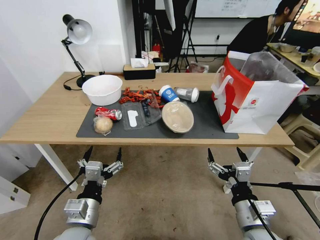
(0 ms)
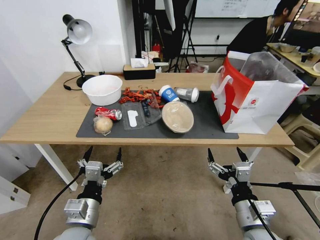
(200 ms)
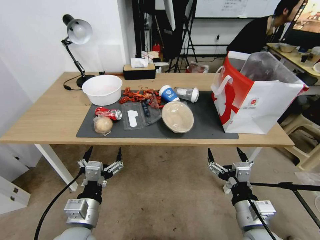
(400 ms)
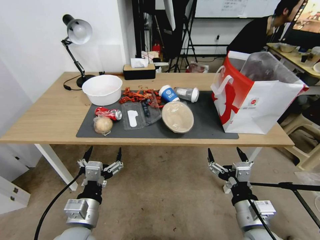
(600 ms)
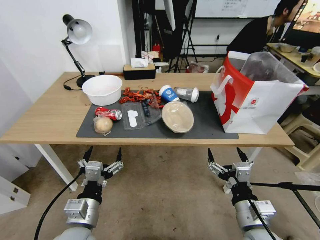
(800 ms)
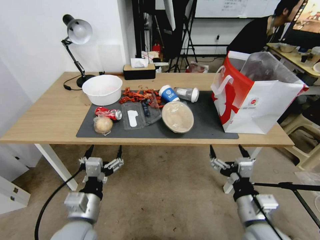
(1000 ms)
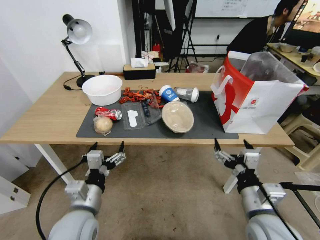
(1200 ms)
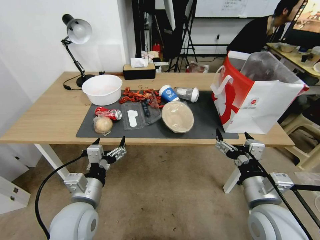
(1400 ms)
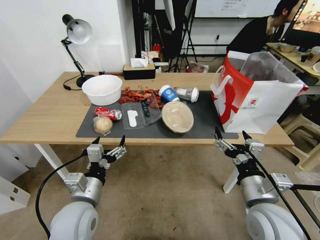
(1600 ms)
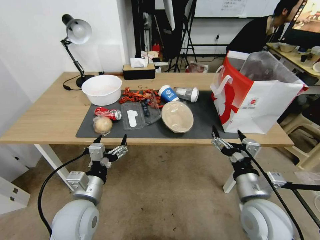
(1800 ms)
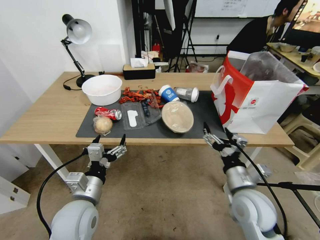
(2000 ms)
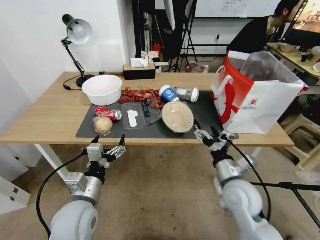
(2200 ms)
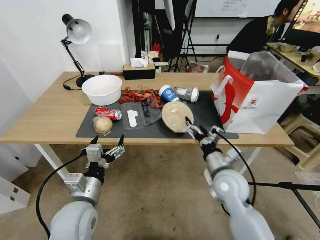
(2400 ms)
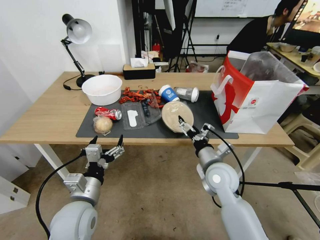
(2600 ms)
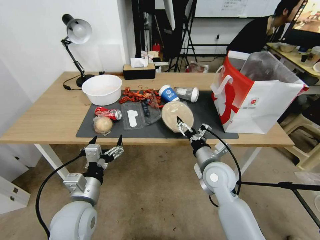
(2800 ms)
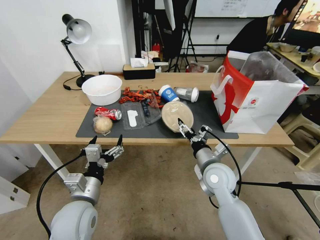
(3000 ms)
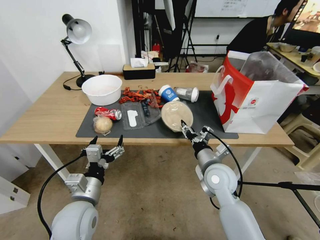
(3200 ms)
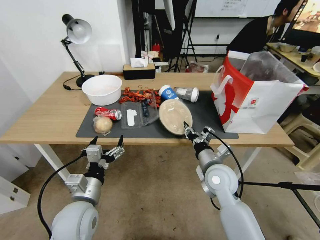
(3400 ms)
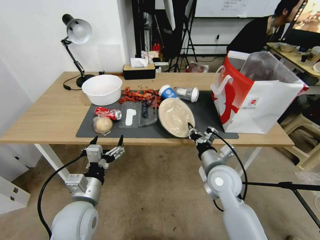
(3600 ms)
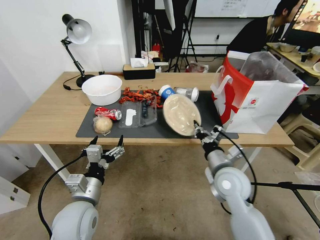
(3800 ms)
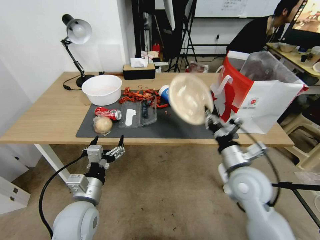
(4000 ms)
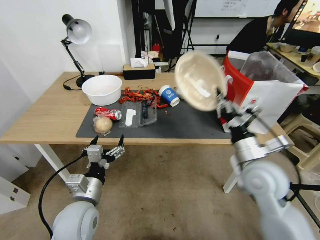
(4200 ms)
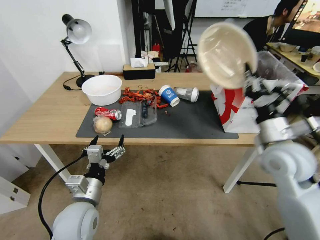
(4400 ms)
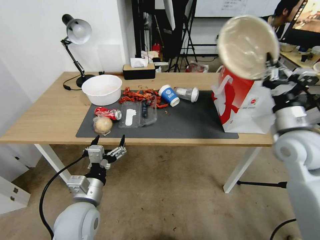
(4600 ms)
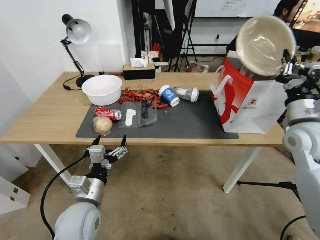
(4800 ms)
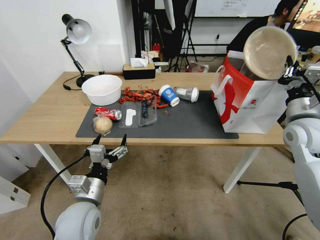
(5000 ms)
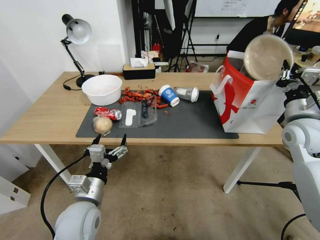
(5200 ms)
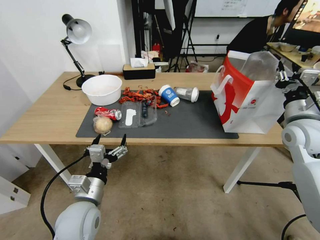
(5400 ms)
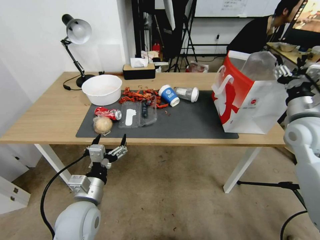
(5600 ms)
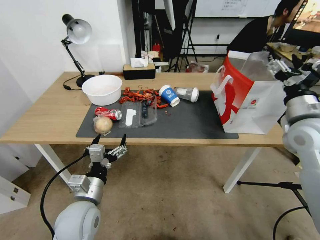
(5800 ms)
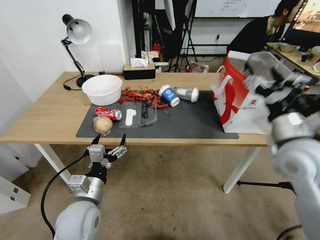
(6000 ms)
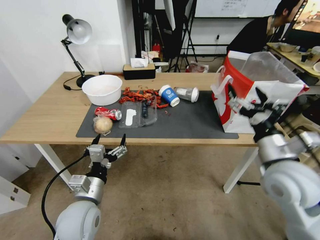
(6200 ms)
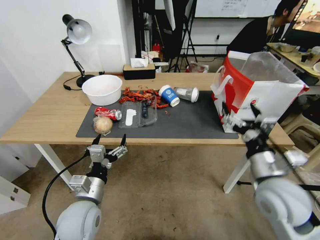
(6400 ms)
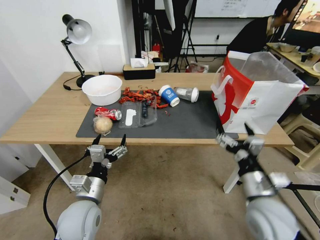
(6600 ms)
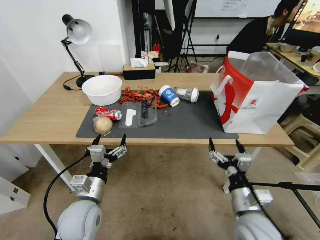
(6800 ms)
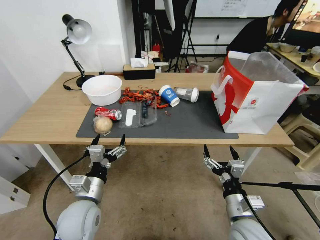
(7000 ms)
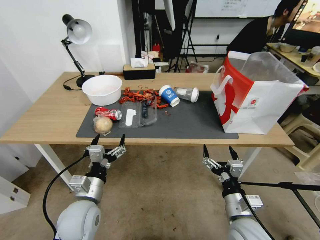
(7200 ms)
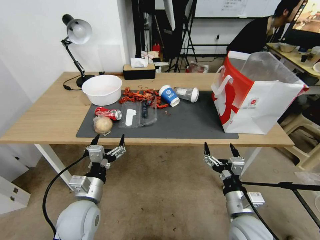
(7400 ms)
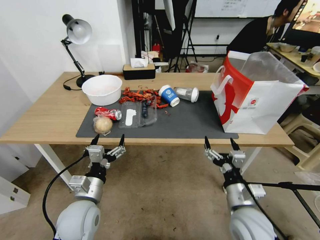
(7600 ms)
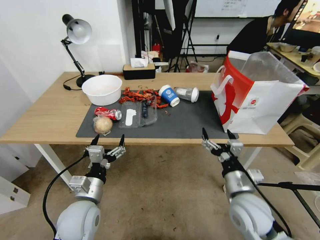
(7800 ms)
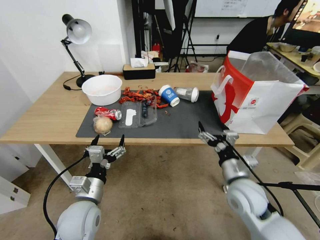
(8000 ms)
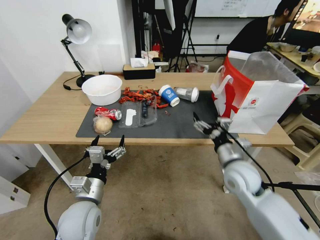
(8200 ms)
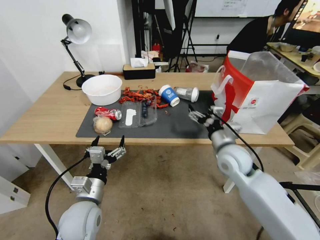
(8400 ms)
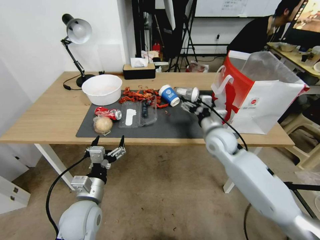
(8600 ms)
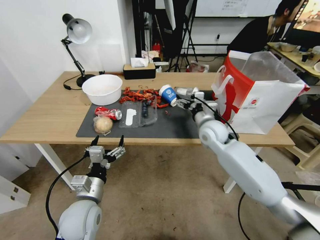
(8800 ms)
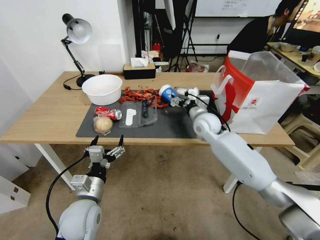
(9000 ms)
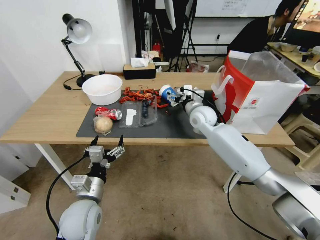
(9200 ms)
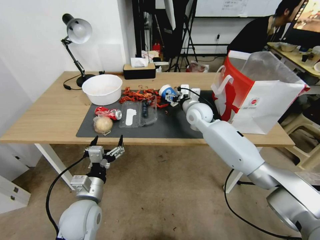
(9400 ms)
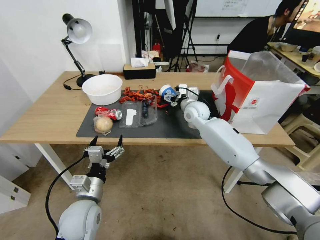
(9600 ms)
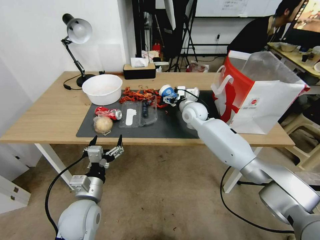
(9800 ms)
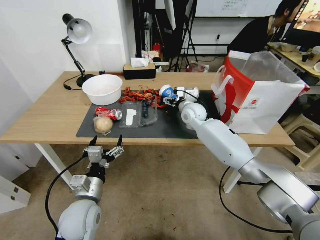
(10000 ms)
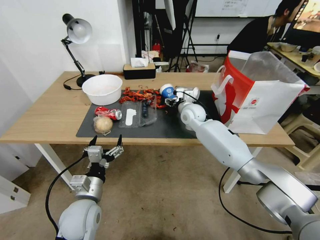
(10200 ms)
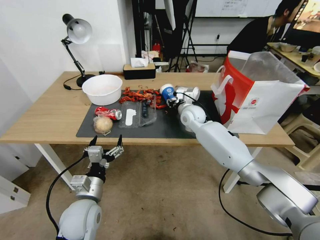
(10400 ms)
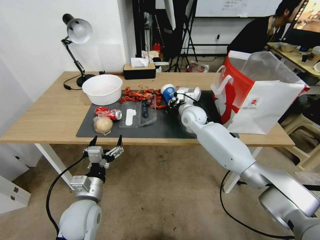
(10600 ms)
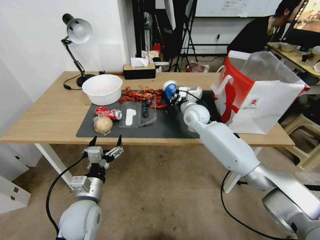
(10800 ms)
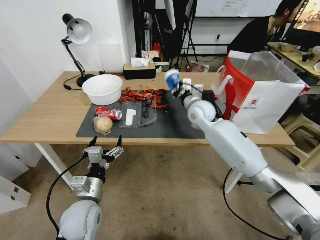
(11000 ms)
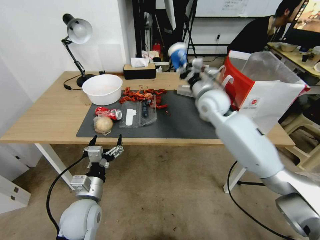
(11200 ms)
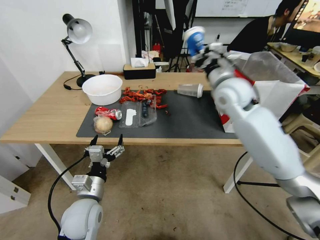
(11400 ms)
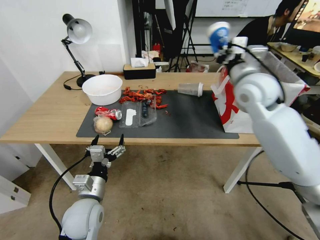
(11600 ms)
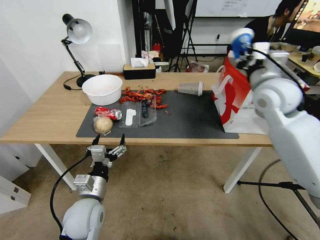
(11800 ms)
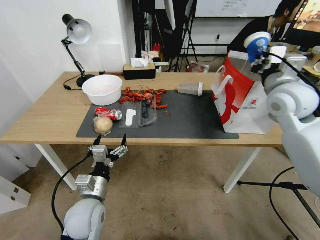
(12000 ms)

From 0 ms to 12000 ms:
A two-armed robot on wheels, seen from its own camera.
From 1600 ms to 3000 ms: The right gripper moves forward, to the left and downward, about 15 cm.
From 3000 ms to 4400 ms: The right gripper travels upward and to the right by some 15 cm, and closes.
From 4400 ms to 6000 ms: The right gripper reaches roughly 10 cm to the right, then returns, and opens up.
From 6000 ms to 7600 ms: The right gripper travels downward, backward and to the left by approximately 25 cm.
From 7600 ms to 9000 ms: The right gripper moves forward, some 30 cm.
From 9000 ms to 10400 ms: The right gripper shifts by about 5 cm, and closes up.
From 10400 ms to 12000 ms: The right gripper moves upward, to the right and backward, some 30 cm, and closes.

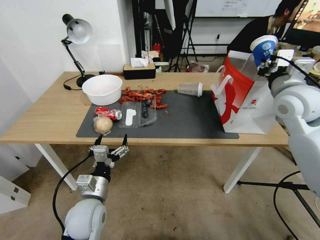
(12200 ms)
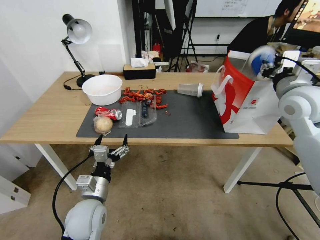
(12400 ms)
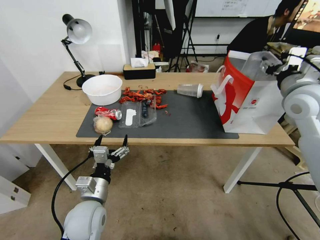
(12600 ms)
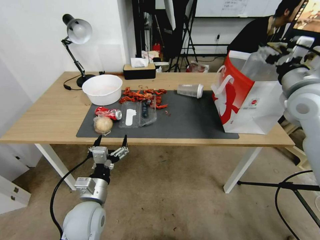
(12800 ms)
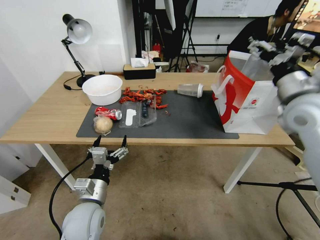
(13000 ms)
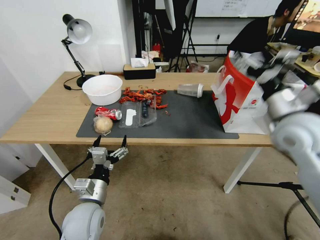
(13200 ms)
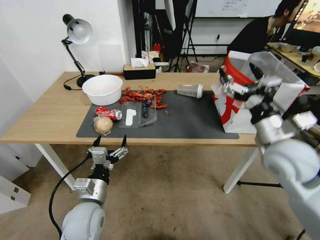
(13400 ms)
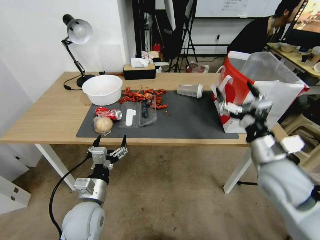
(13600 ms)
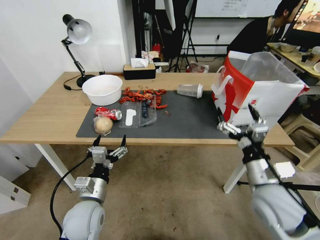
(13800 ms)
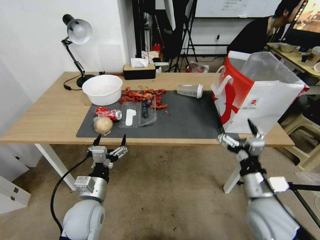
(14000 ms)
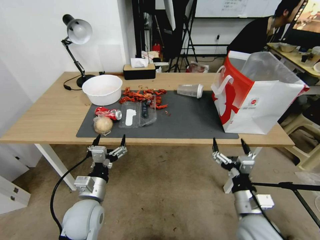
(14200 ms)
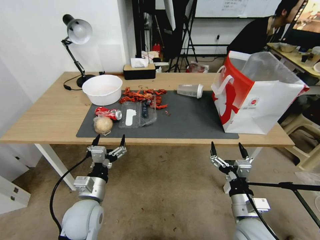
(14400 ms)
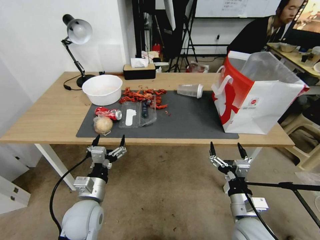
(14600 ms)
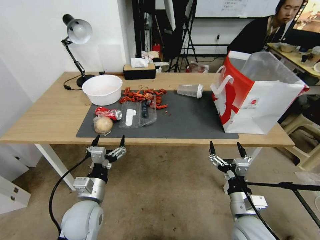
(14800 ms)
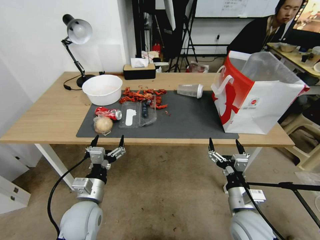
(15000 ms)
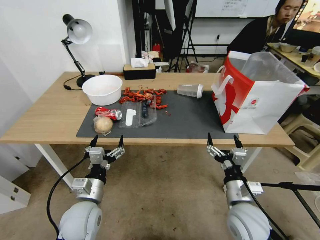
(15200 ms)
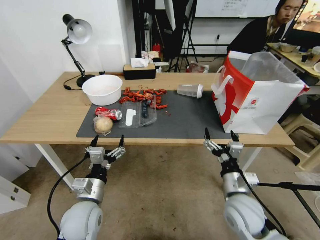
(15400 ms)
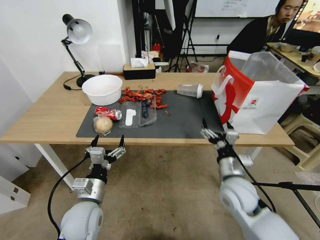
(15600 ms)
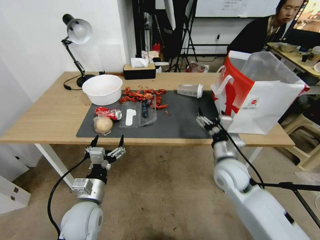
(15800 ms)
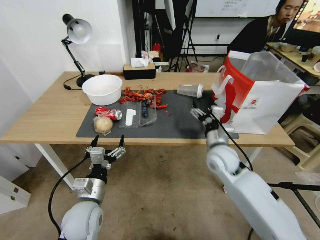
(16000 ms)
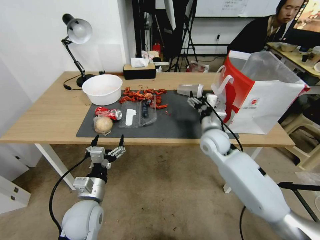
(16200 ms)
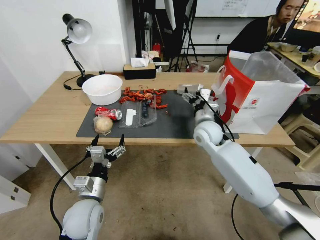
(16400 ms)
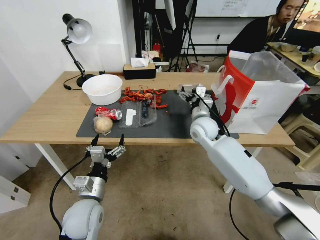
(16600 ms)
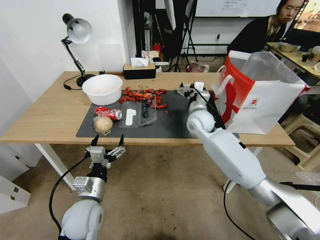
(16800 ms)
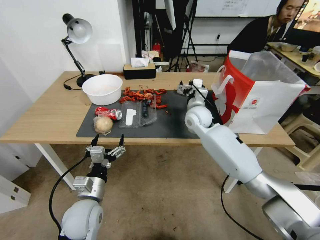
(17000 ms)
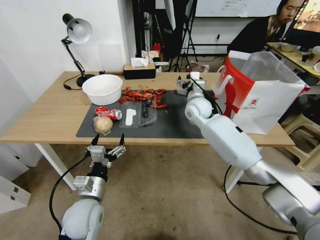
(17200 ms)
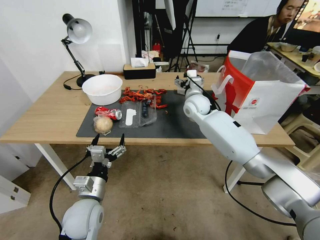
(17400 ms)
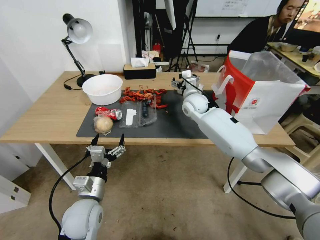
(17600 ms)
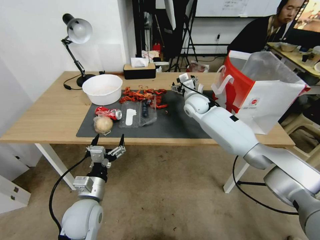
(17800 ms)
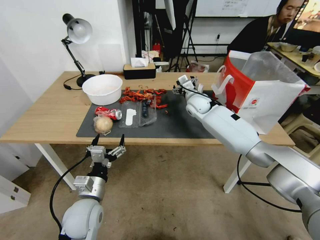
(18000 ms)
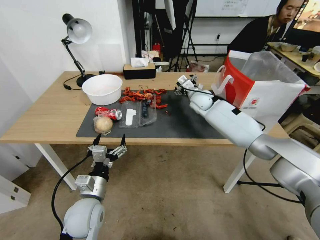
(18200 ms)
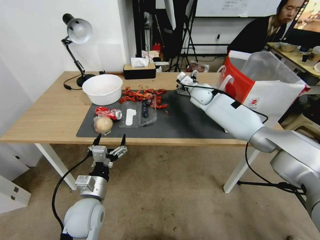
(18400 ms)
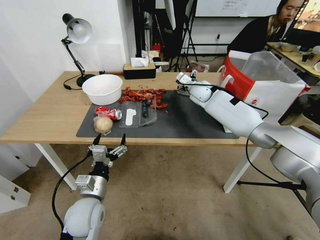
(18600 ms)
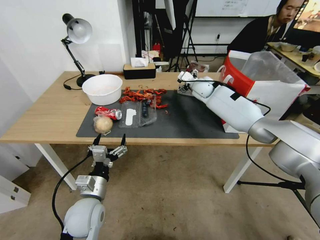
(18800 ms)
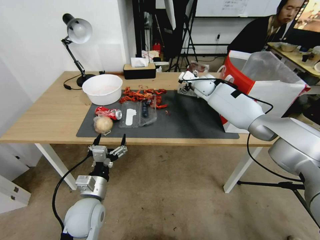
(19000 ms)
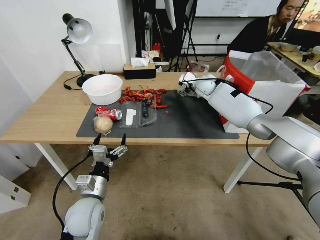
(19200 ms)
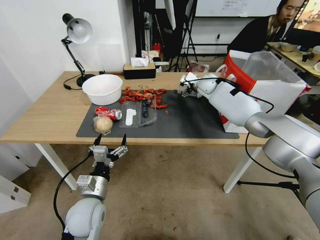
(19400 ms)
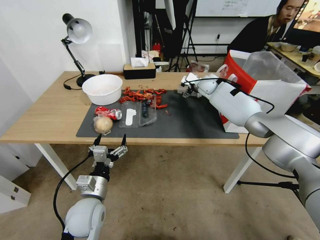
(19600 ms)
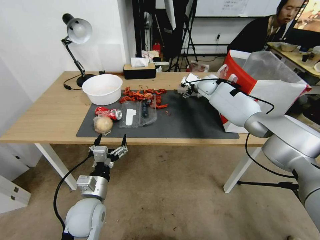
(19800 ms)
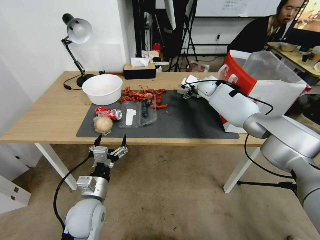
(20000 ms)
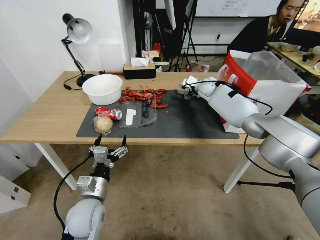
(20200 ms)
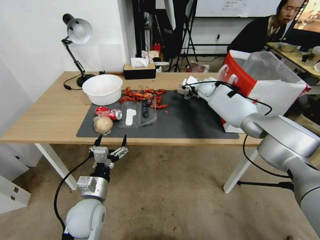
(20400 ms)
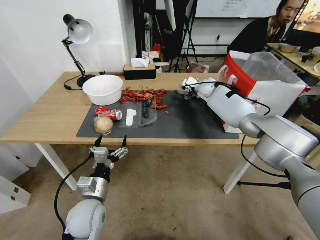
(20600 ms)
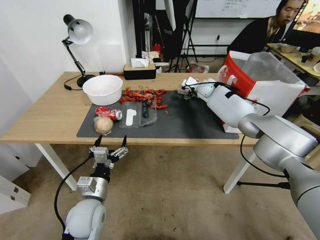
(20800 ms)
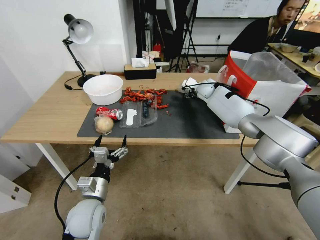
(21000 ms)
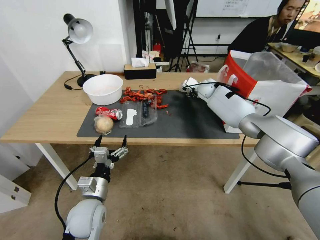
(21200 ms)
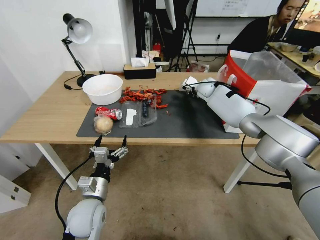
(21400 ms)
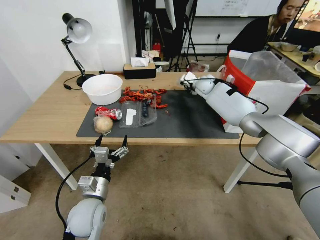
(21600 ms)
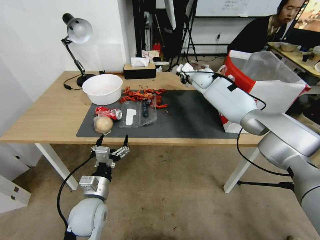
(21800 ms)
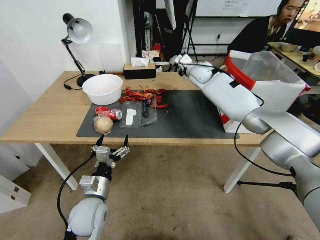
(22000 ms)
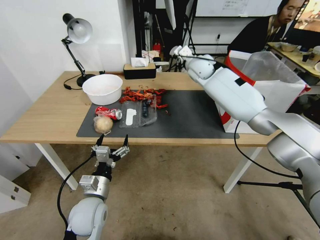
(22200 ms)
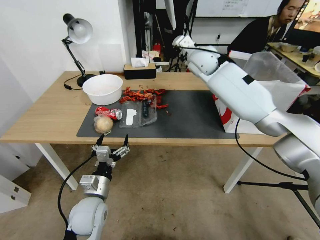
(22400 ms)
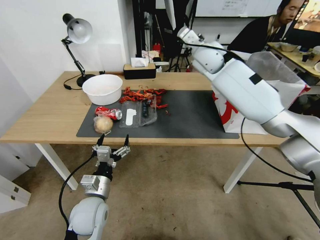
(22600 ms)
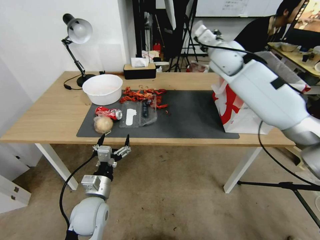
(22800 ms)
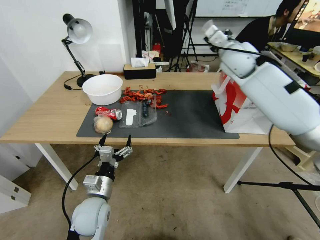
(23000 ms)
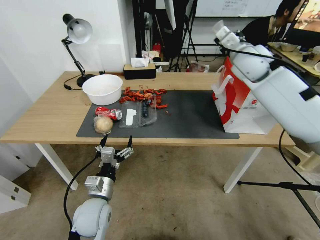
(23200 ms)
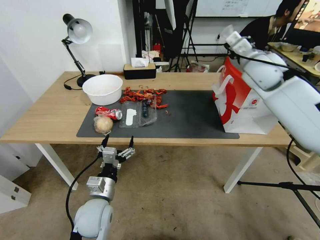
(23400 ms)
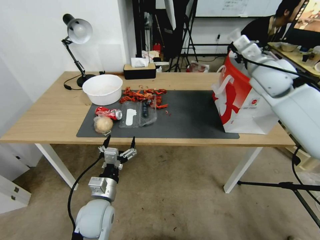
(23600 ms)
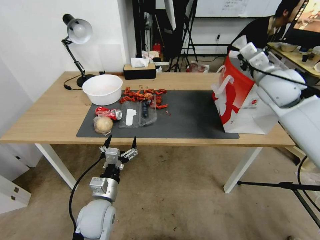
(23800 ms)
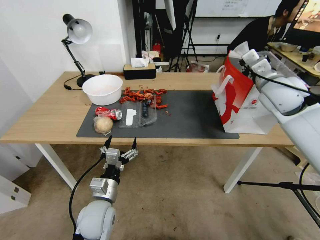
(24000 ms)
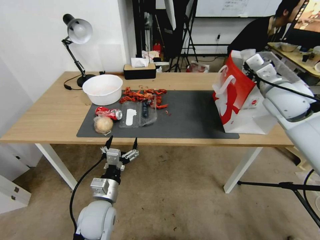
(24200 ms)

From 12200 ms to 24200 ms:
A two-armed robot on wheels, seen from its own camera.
From 12200 ms to 13800 ms: The right gripper heads backward and downward, covering approximately 25 cm, and opens.
From 13800 ms to 15200 ms: The right gripper travels downward by about 10 cm.
From 15200 ms to 16600 ms: The right gripper is displaced forward by approximately 30 cm.
From 16600 ms to 18200 ms: The right gripper is displaced forward by some 15 cm.
From 18200 ms to 19800 ms: The right gripper is displaced forward by about 5 cm.
From 19800 ms to 21200 ms: The right gripper closes.
From 21200 ms to 22600 ms: The right gripper is displaced upward and backward by about 20 cm, and closes.
From 22600 ms to 24200 ms: The right gripper travels to the right and backward by some 25 cm.
